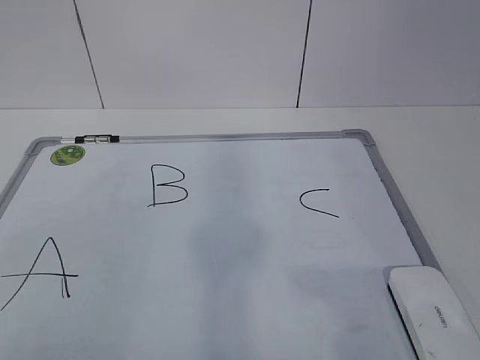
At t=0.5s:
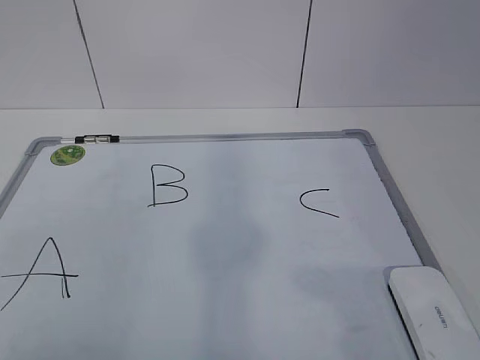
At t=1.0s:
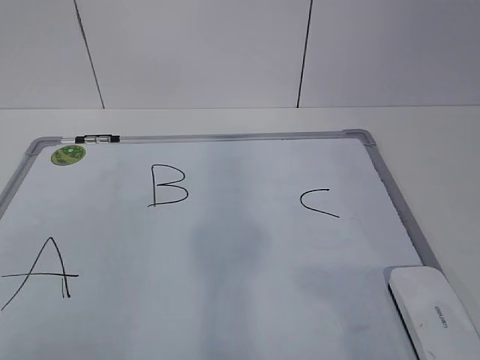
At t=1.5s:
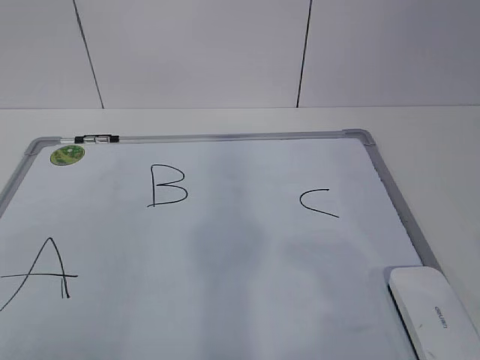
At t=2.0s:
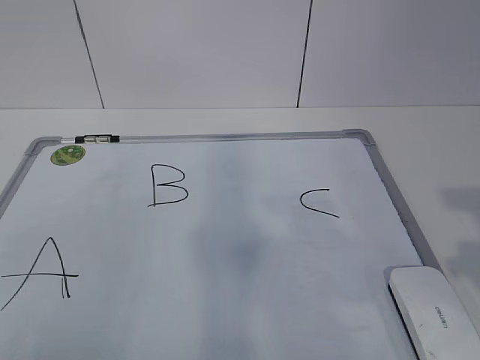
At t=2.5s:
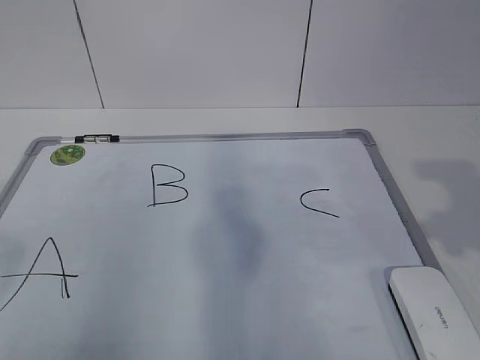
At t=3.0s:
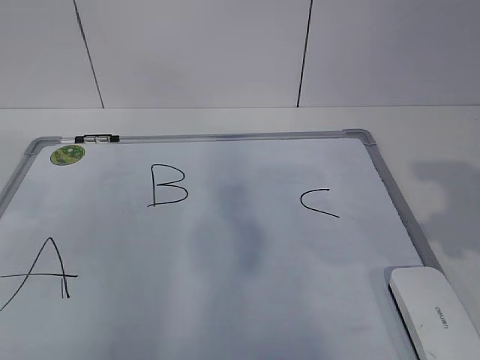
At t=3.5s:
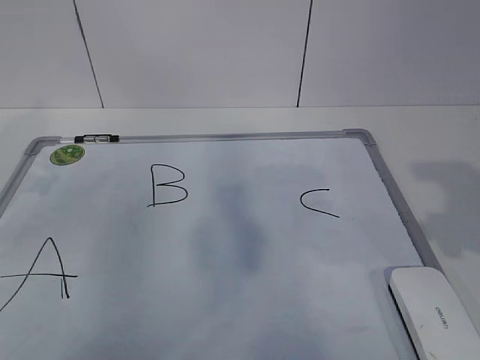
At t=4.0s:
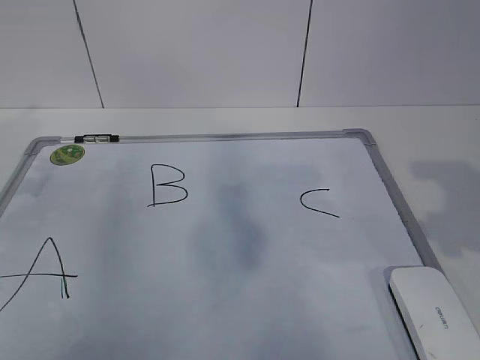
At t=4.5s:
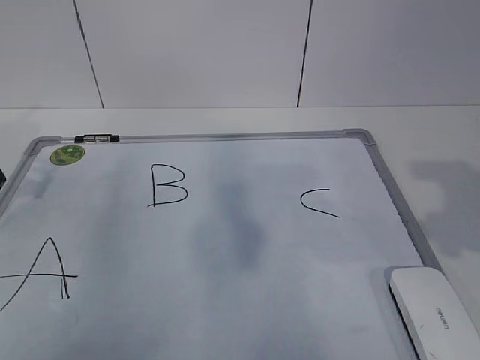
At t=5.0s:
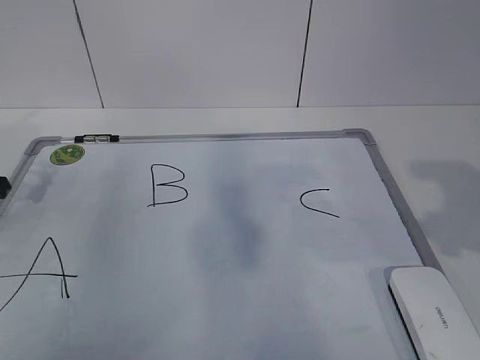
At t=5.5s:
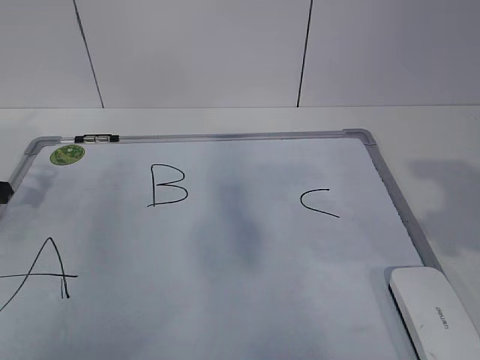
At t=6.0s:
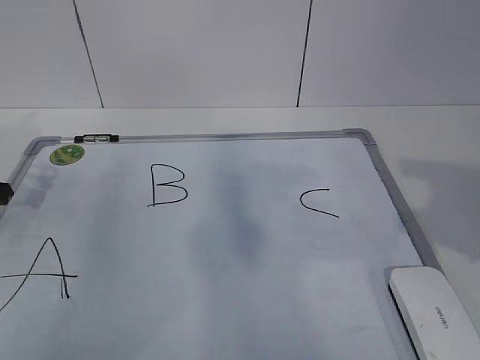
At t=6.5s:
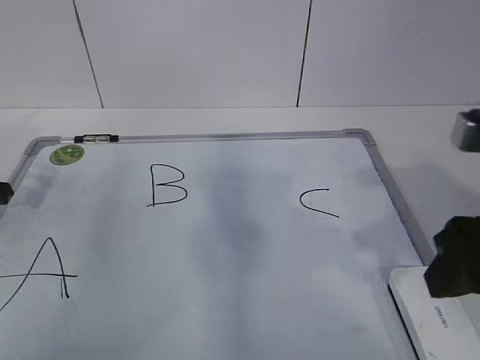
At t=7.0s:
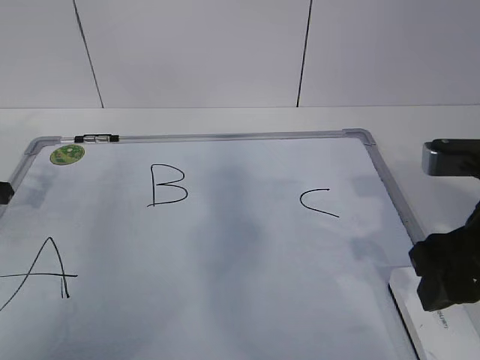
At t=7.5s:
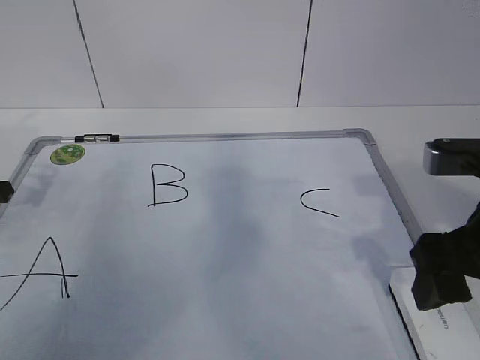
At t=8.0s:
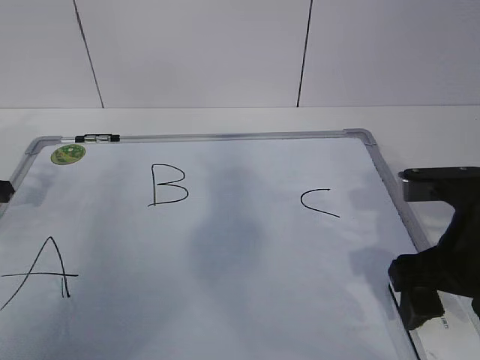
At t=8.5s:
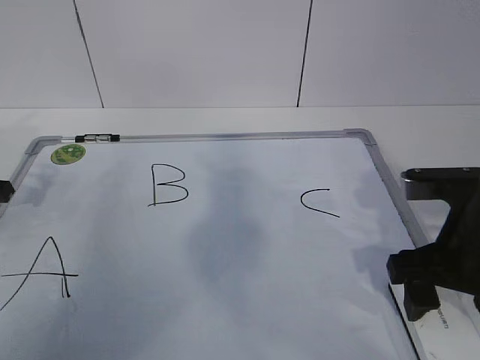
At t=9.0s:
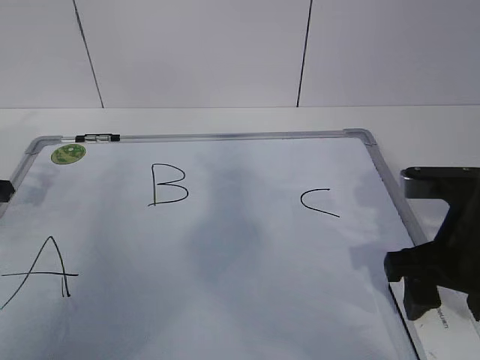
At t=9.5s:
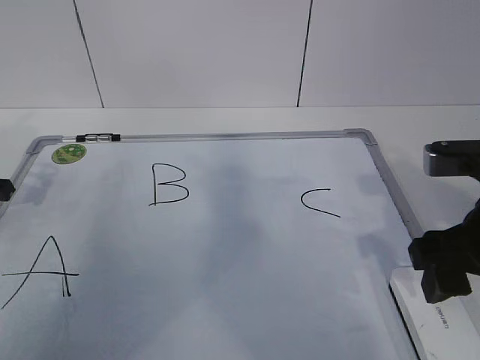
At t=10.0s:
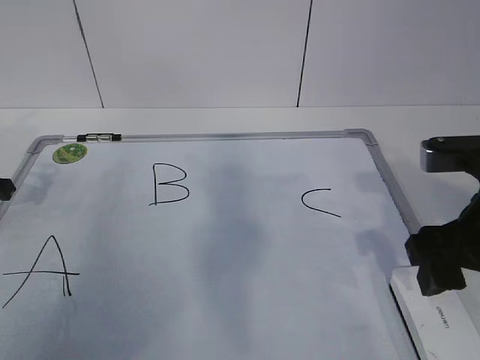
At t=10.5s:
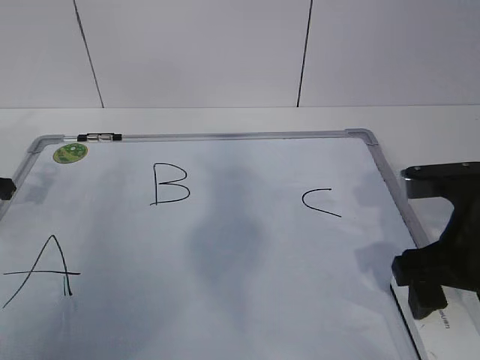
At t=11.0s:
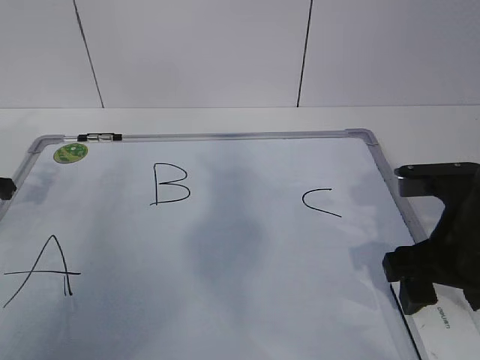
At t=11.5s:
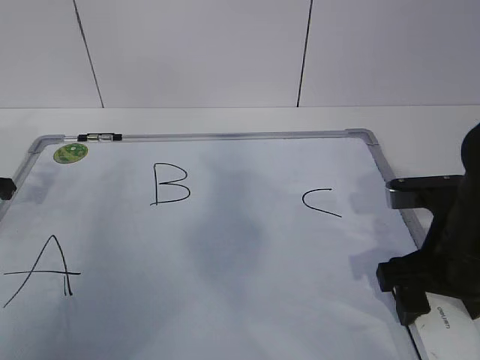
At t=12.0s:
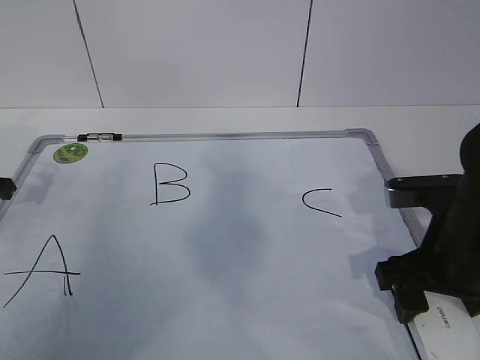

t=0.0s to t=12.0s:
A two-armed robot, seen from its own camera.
Task of the whole recording: pick up the eraser on the blackboard and erase the letter "B".
Step, t=4.5s to t=10.5s: Grab the eraser with your right hand.
t=2.0s to t=4.0s: The right gripper travels forward by roughly 5 cm; the left gripper goes about 30 cm forward.
t=6.0s to t=8.0s: The right gripper is displaced downward, to the left and forward by some 15 cm, and opens.
t=8.0s to t=10.0s: The right gripper closes.
t=10.0s to t=12.0s: The right gripper goes some 5 cm downward.

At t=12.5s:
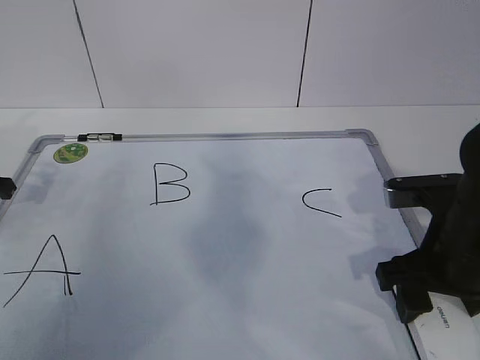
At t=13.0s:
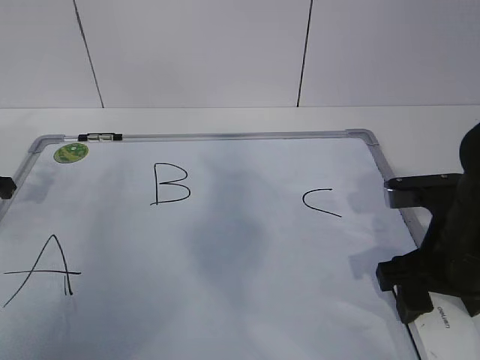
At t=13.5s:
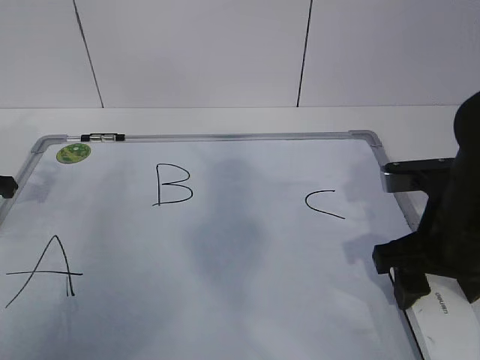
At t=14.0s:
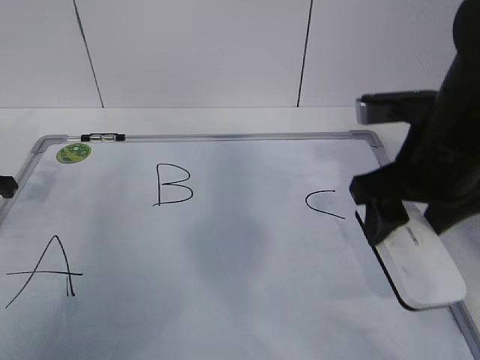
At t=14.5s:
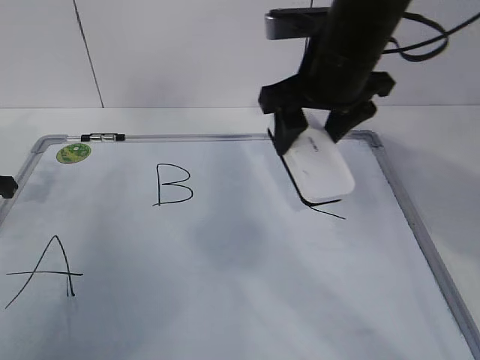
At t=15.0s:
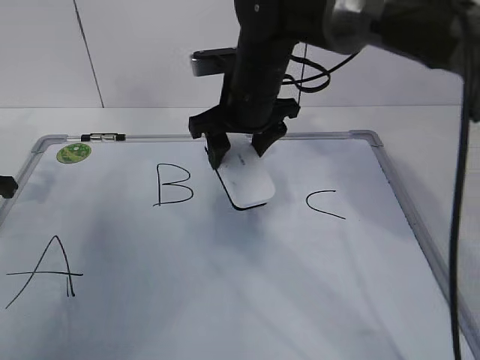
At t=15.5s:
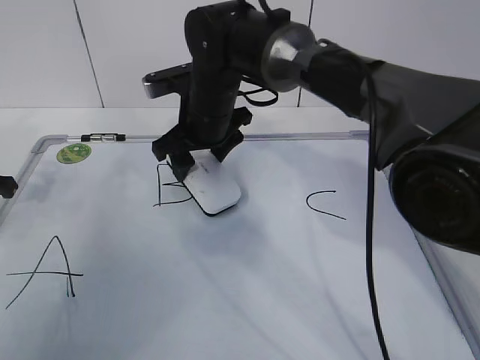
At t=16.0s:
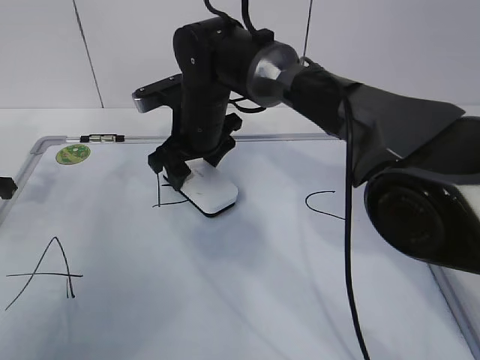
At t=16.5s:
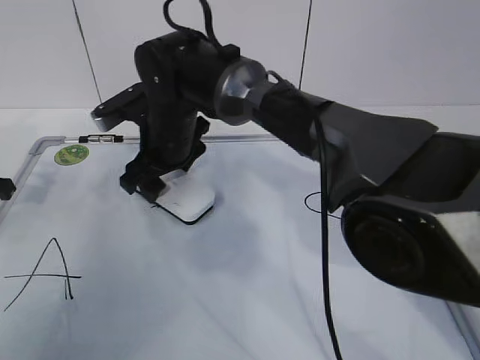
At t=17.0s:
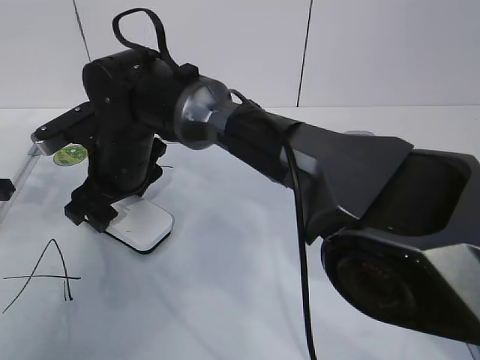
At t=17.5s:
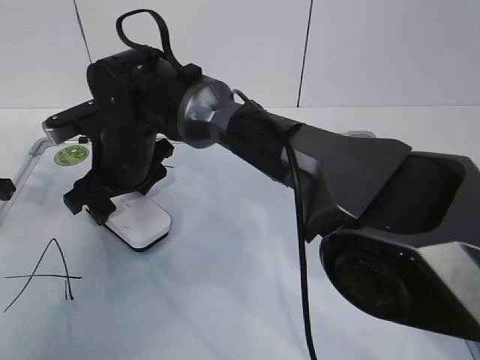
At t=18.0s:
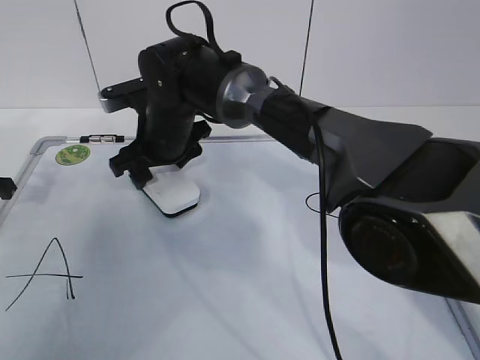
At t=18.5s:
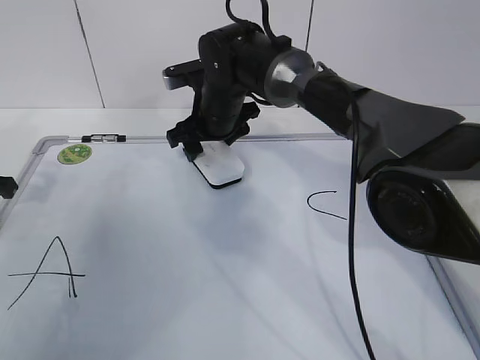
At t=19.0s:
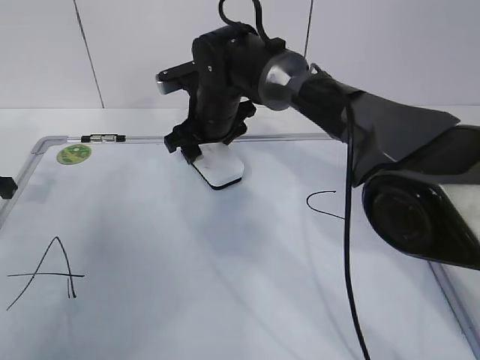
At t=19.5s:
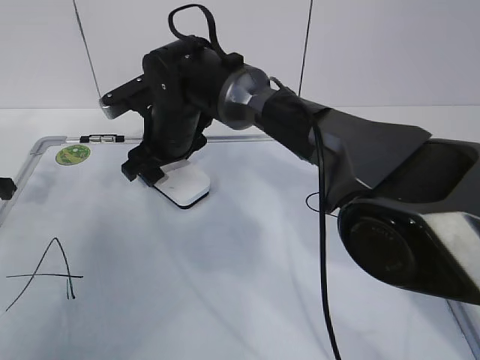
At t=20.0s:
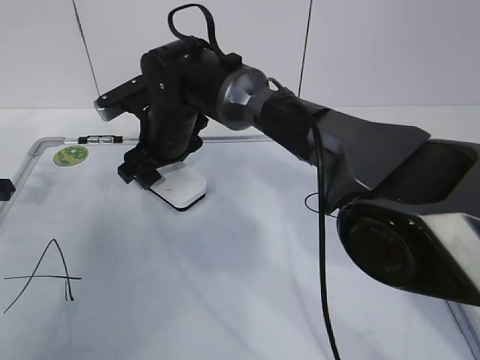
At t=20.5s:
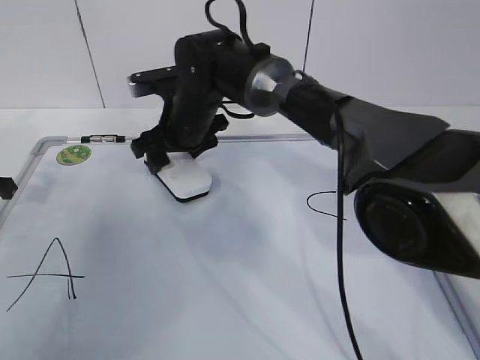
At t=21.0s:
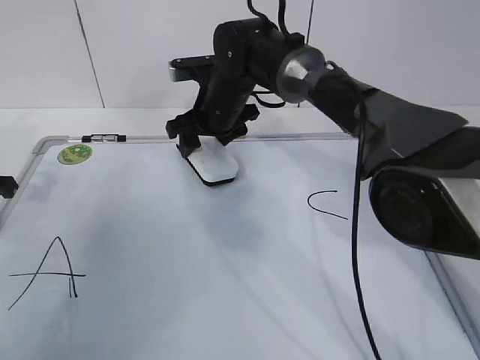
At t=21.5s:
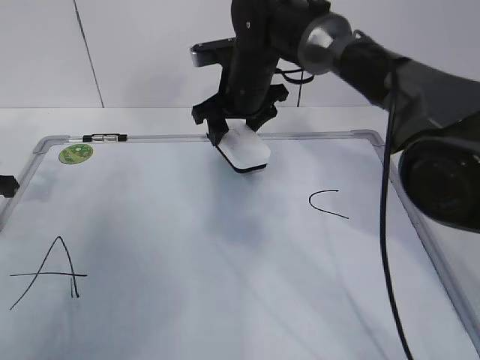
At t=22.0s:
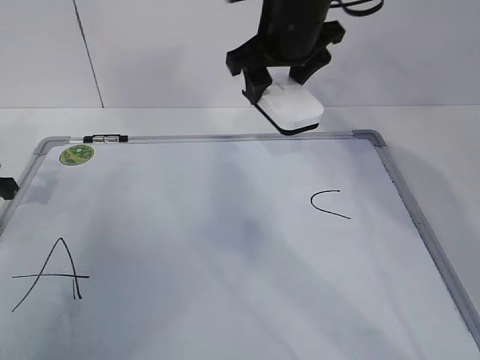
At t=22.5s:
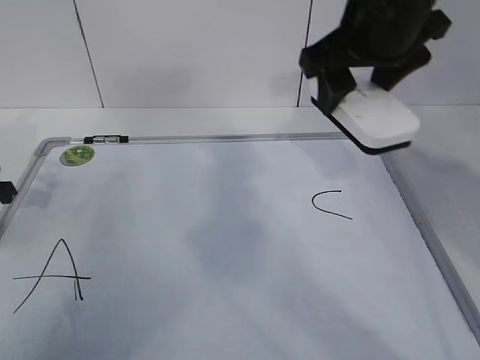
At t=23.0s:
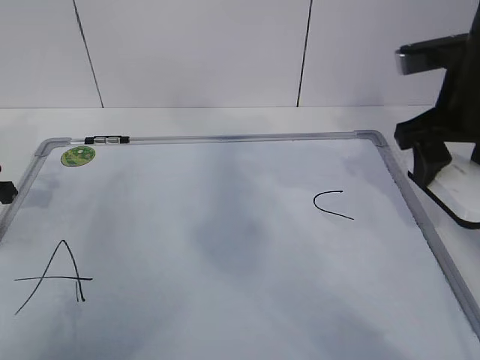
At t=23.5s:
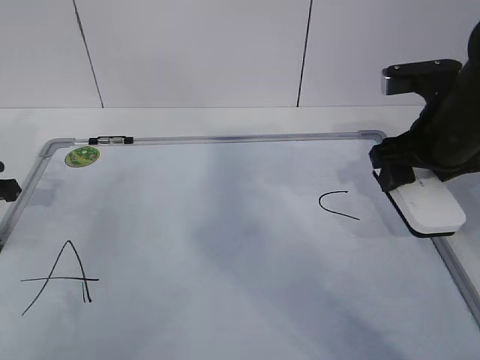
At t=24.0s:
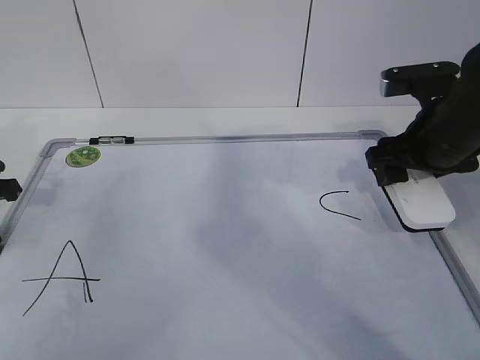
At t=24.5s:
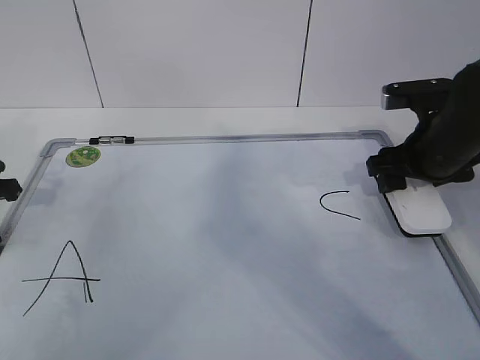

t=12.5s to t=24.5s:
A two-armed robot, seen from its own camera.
Task of the whole recording: pick up the eraser on the blackboard and erase the letter "B".
Step, t=12.5s to t=17.5s: Erase the letter B with your right hand.
Step, t=18.0s to t=21.0s: Put down the eraser with your right hand.
t=12.5s to t=14.5s: The right gripper moves forward, upward and to the left, about 20 cm.
t=14.5s to t=16.5s: The right gripper goes approximately 20 cm to the left and downward.
t=16.5s to t=18.5s: The right gripper goes about 10 cm to the right and forward.
t=20.5s to t=22.5s: The right gripper shifts roughly 30 cm upward, to the right and backward.
t=22.5s to t=24.5s: The right gripper is displaced downward and to the right by roughly 15 cm.

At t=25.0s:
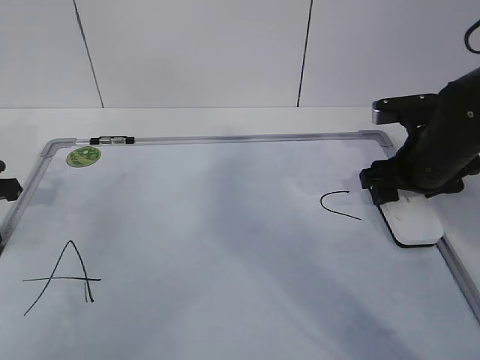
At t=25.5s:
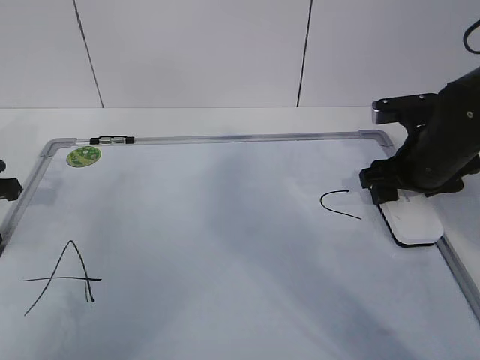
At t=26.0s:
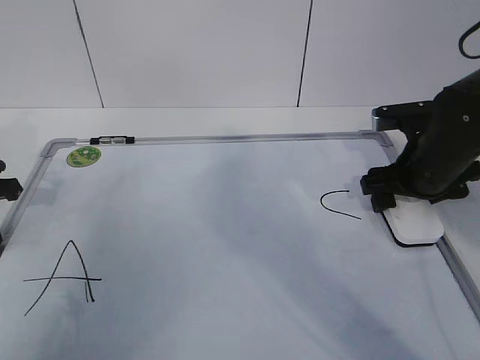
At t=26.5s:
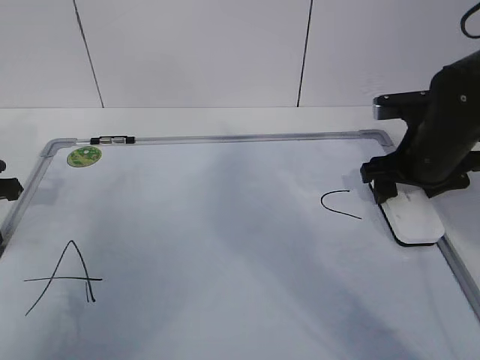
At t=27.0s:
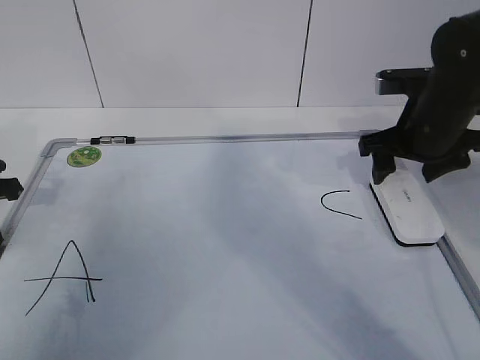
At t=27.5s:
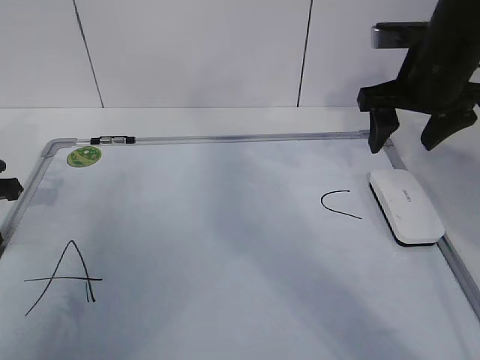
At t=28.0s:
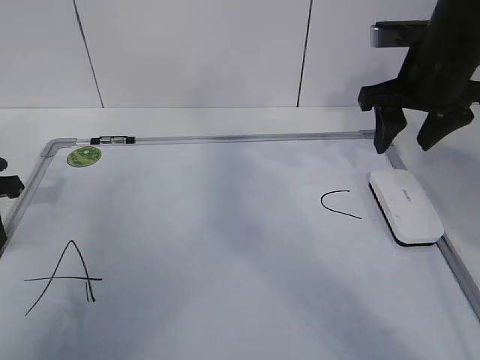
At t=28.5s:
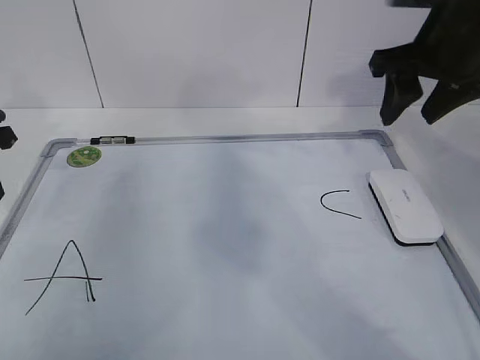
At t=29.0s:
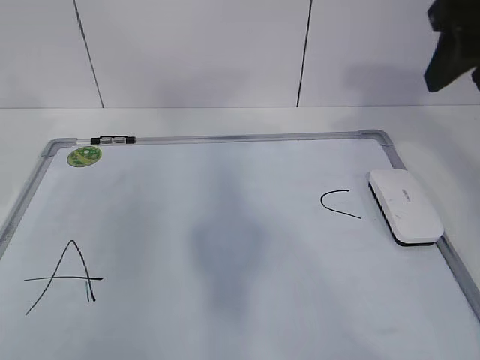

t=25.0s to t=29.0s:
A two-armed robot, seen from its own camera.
Task of the whole recording: pick up the eraser on the blackboard and erase the letter "B".
t=25.0s to t=27.0s: There are only small adjustments of the grippers.
t=27.0s to t=29.0s: The left gripper moves upward, approximately 10 cm, and opens up, while the right gripper moves upward and backward, some 20 cm, and closes up.
